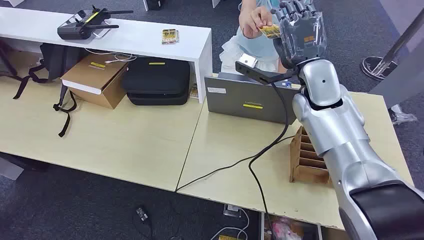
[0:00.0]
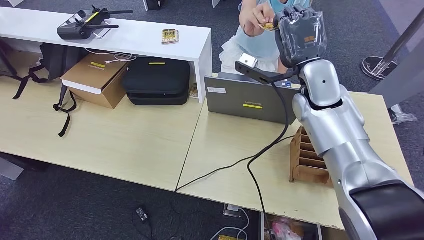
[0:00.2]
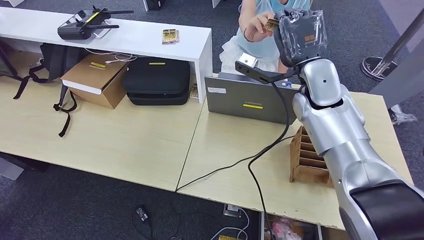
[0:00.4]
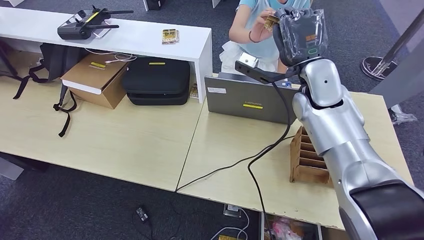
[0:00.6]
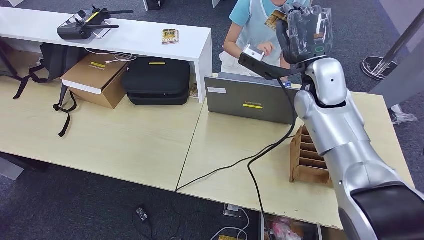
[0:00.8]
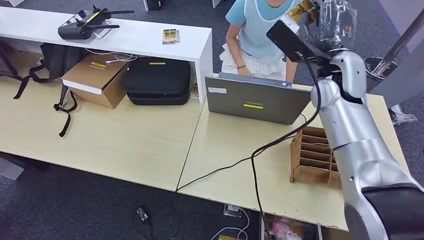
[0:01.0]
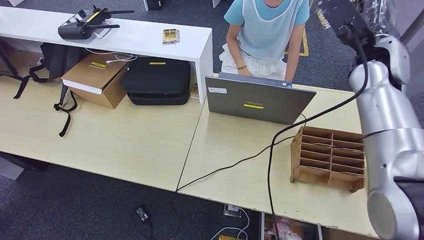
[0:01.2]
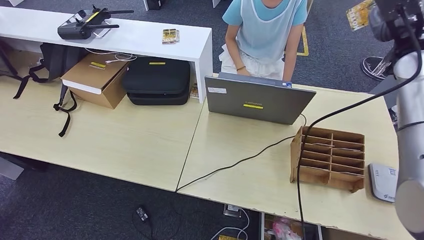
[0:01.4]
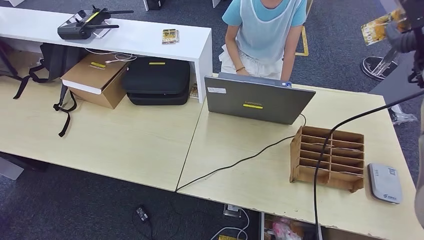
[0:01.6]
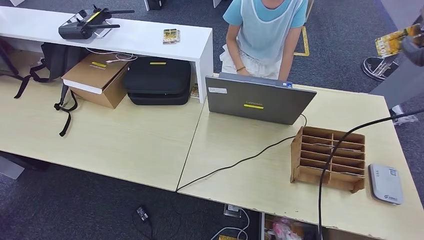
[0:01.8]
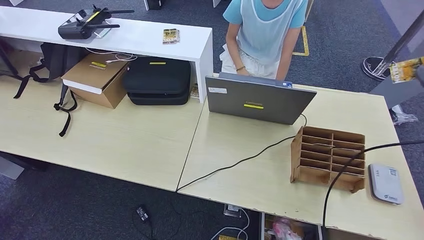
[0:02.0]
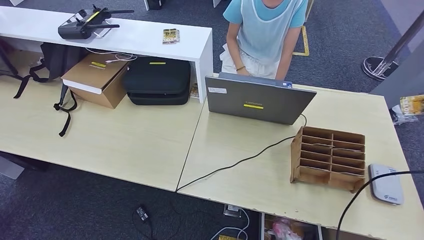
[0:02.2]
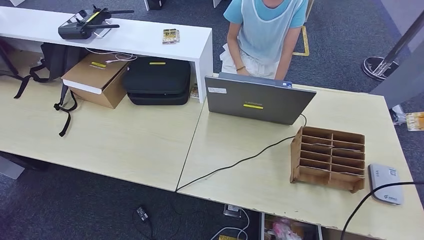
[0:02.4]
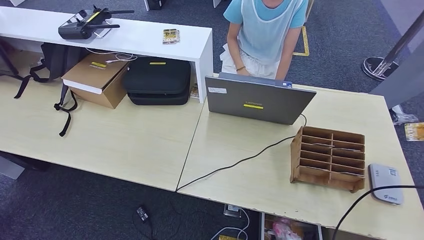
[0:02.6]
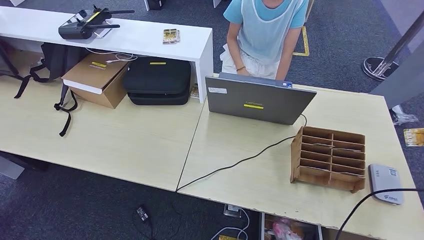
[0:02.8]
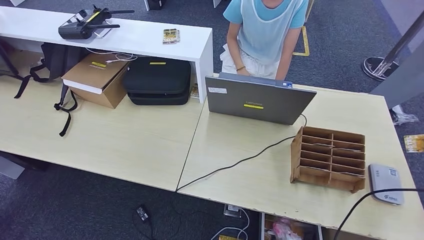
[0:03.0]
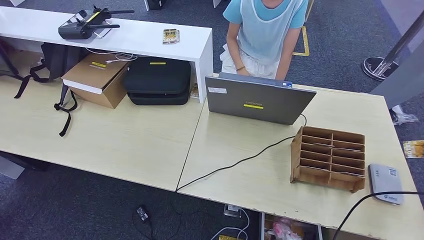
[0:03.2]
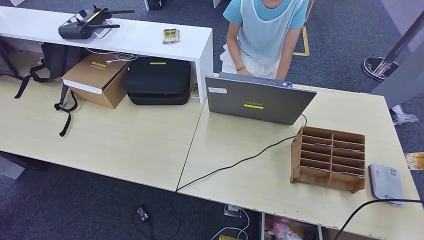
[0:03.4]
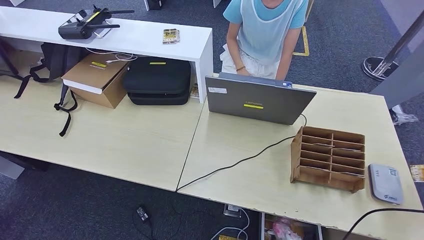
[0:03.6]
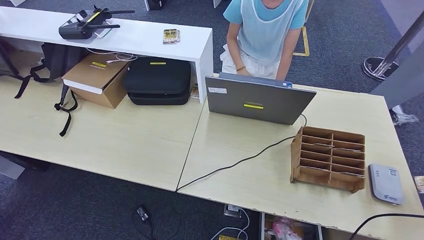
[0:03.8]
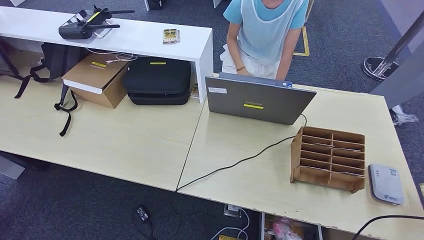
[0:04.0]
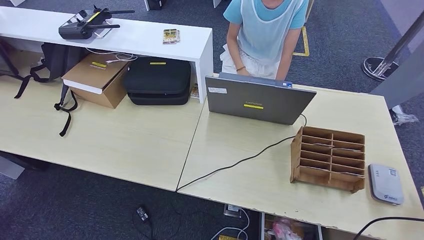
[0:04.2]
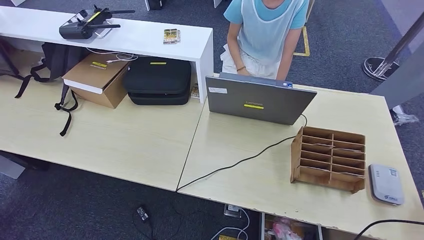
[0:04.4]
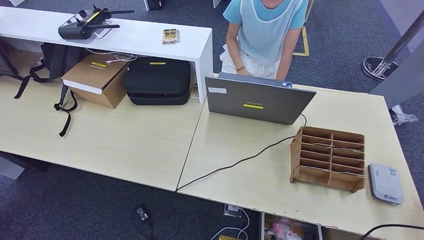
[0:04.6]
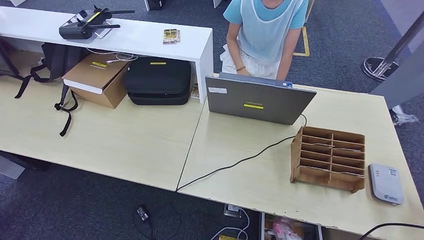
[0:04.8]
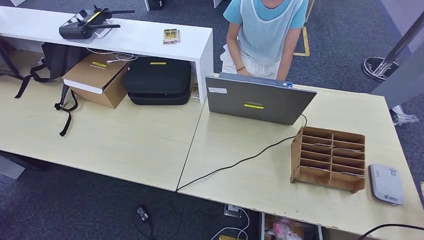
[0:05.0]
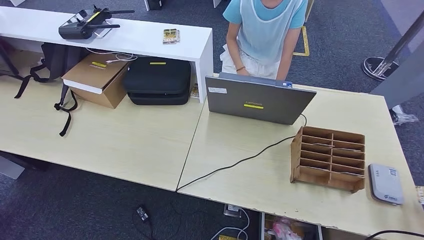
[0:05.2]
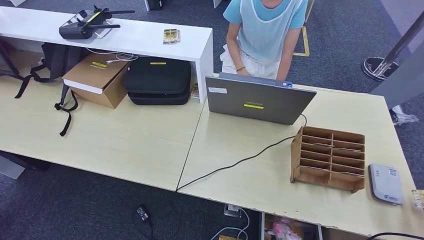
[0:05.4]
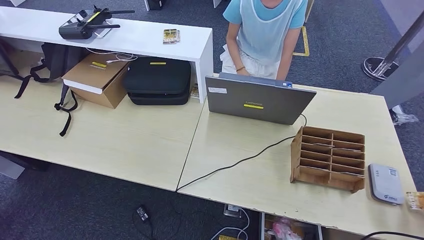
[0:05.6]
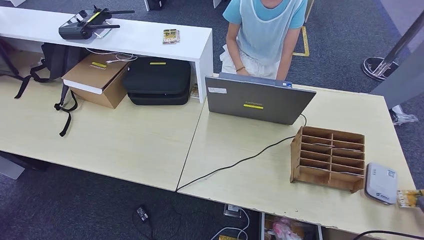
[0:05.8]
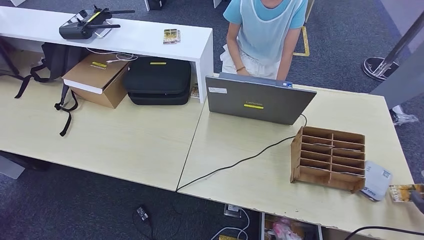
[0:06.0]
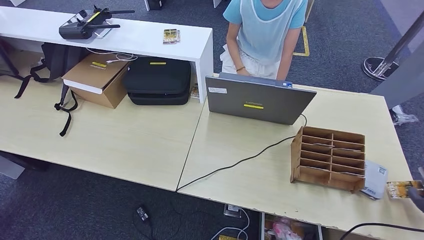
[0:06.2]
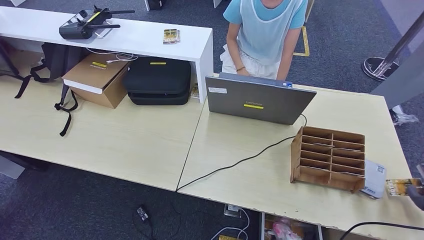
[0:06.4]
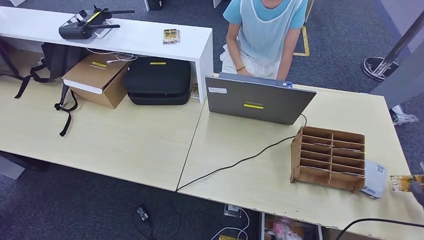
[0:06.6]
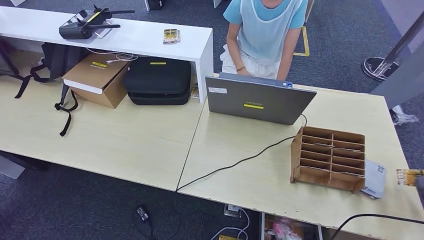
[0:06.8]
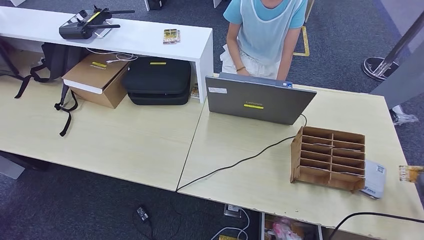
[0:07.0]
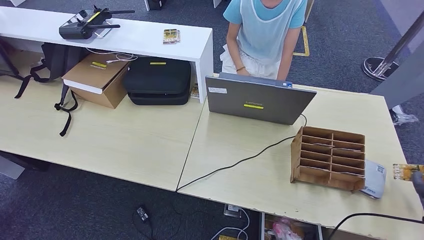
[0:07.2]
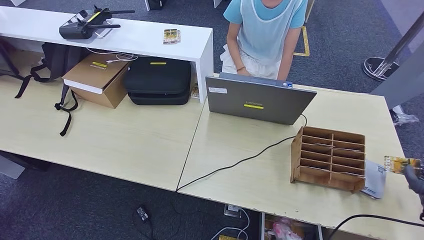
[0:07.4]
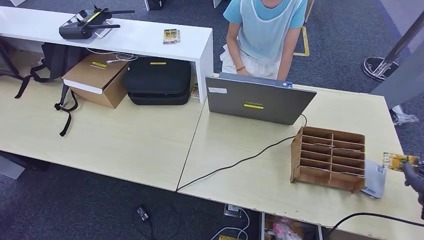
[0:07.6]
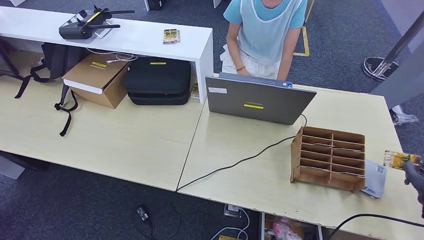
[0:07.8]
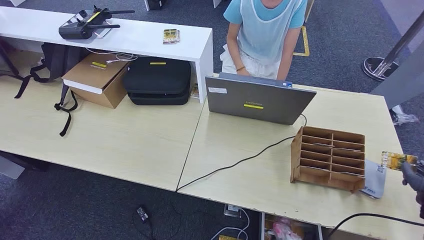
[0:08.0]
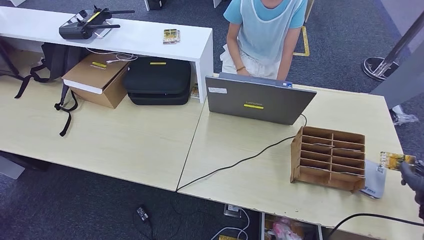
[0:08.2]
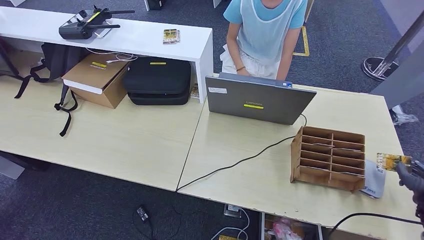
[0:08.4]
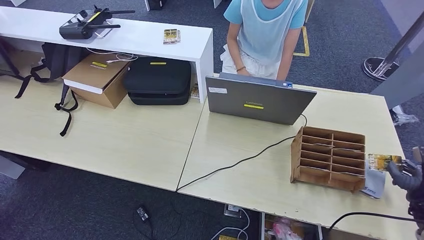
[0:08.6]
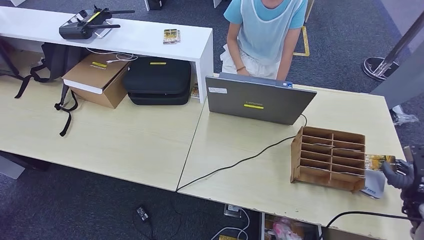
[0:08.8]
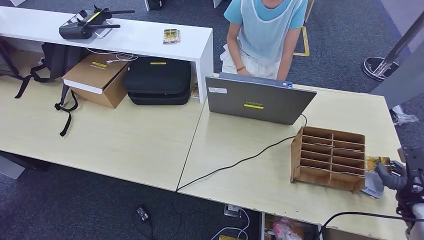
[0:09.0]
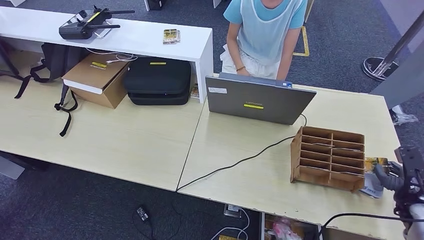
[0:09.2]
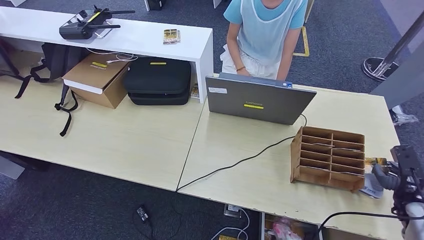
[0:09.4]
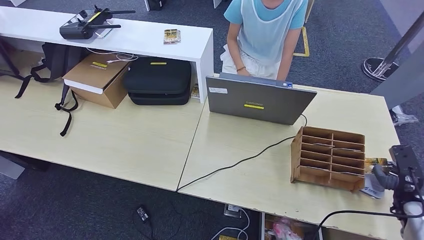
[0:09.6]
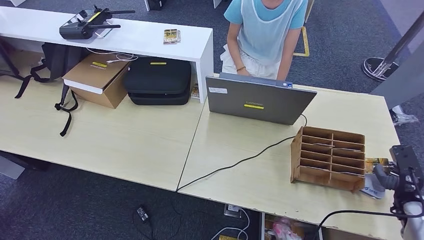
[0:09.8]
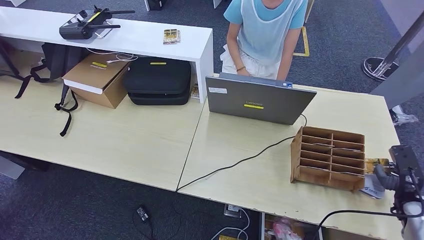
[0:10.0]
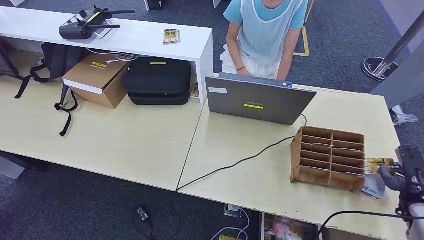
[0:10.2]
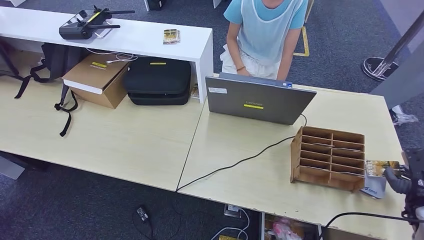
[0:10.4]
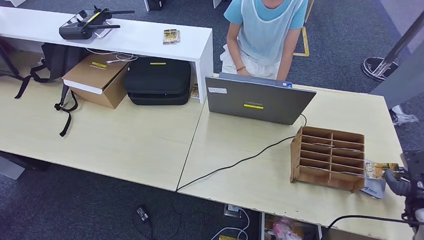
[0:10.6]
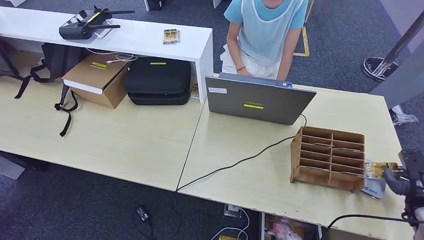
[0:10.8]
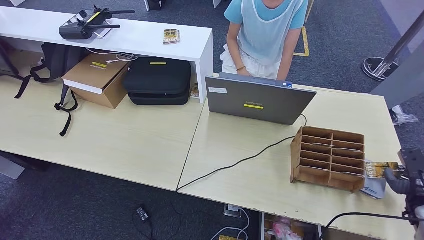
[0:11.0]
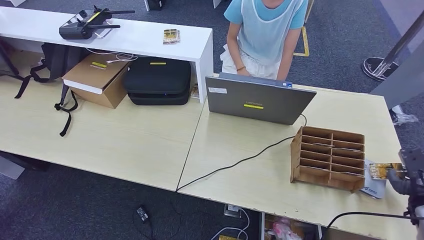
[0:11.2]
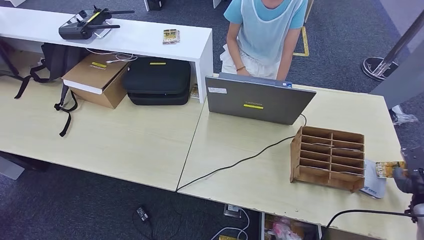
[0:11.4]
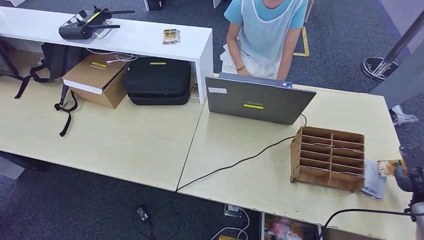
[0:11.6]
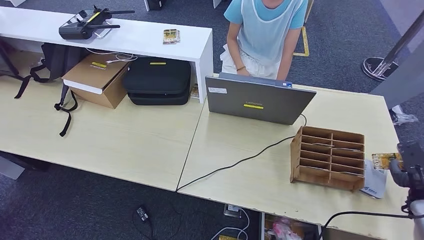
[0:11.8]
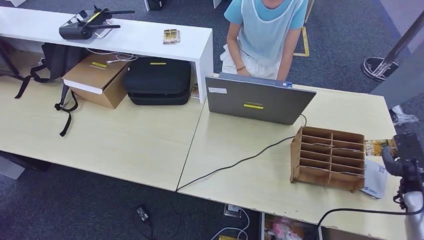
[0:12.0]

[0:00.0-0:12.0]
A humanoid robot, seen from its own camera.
Step, 0:00.0 to 0:01.6: Take the ID card from the person's hand.
Step, 0:01.8 to 0:11.0: Place the ID card on the card reader.
0:01.6 to 0:03.0: The right hand heads downward, to the right and backward, covering some 30 cm.
0:03.0 to 0:04.4: The right hand is displaced backward and downward by about 10 cm.
0:04.4 to 0:06.0: The hands make only small movements.
0:06.0 to 0:07.6: The right hand ends up some 5 cm from where it was.
0:07.6 to 0:10.4: The hands stay close to where they were, moving slightly.
0:10.4 to 0:12.0: The hands stay close to where they were, moving slightly.

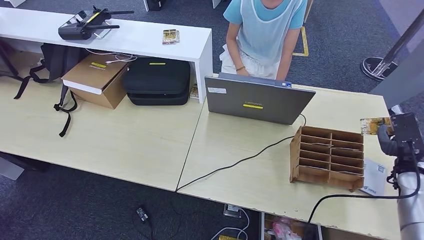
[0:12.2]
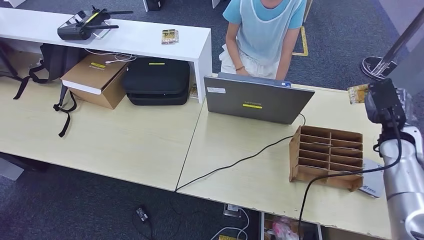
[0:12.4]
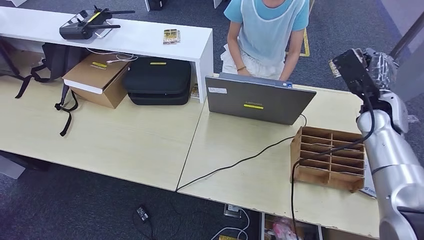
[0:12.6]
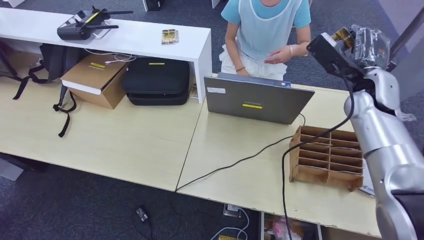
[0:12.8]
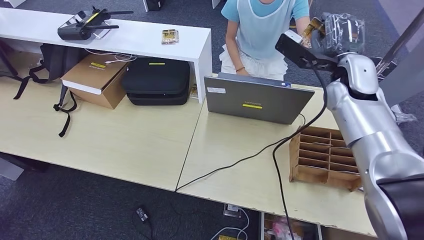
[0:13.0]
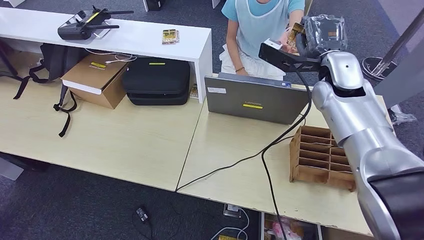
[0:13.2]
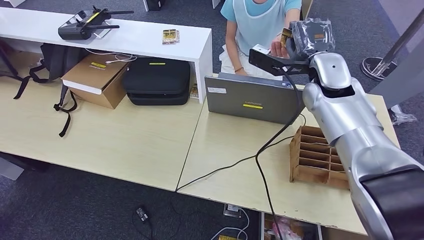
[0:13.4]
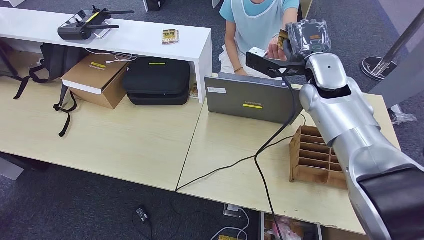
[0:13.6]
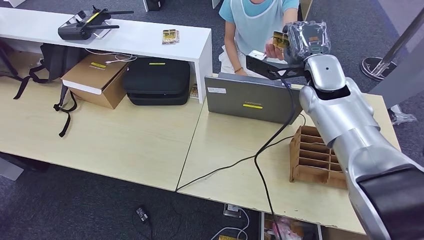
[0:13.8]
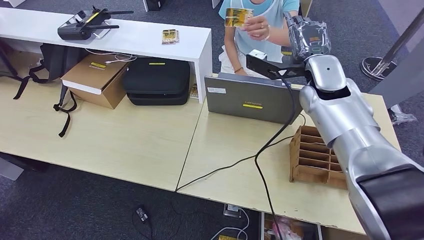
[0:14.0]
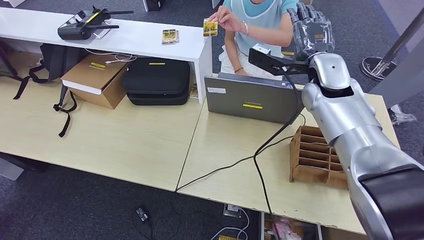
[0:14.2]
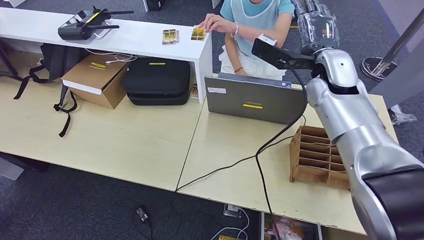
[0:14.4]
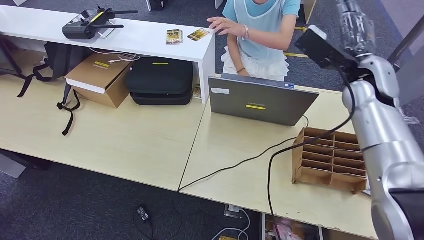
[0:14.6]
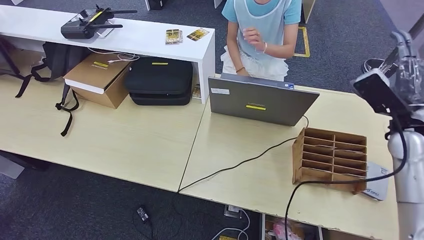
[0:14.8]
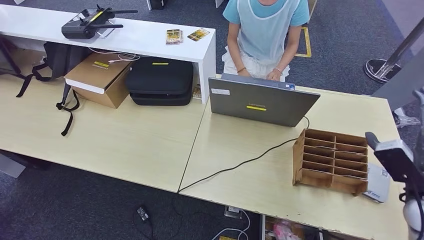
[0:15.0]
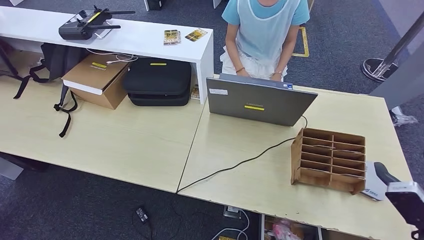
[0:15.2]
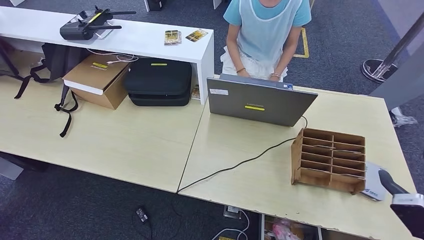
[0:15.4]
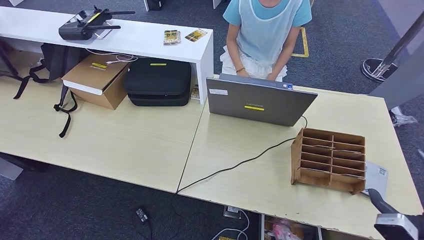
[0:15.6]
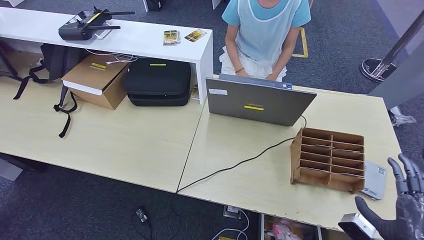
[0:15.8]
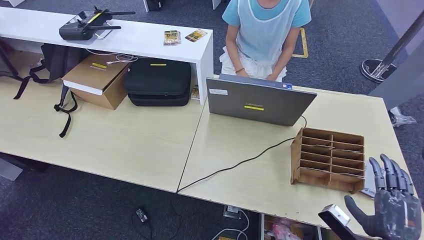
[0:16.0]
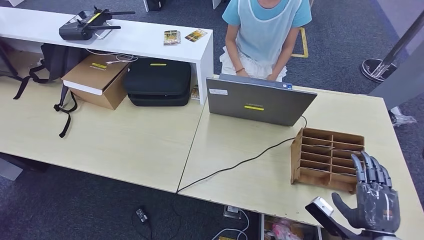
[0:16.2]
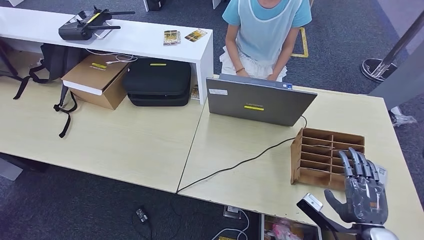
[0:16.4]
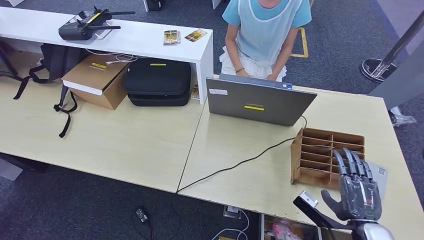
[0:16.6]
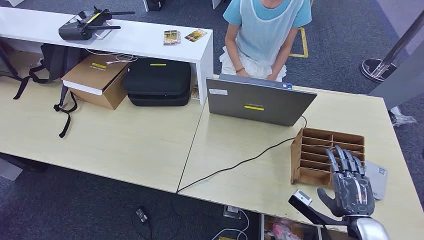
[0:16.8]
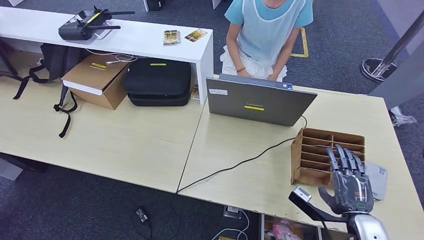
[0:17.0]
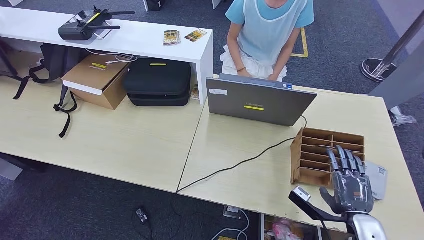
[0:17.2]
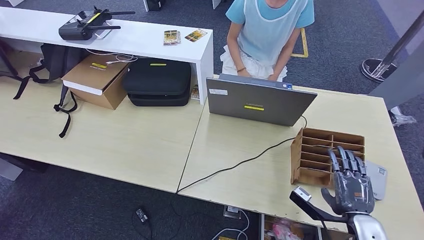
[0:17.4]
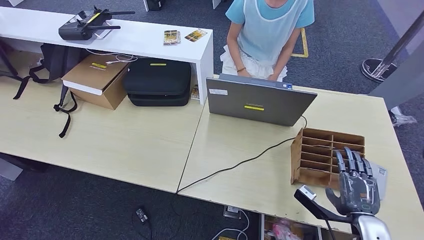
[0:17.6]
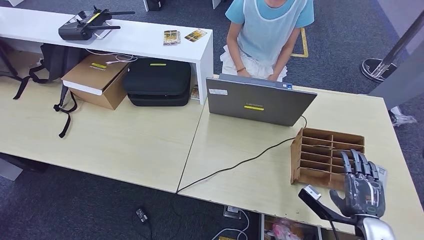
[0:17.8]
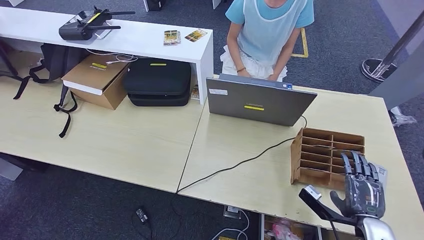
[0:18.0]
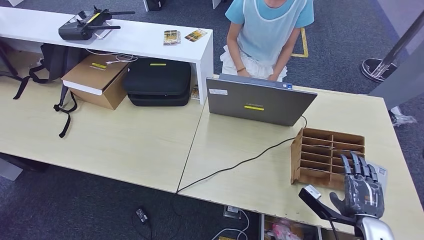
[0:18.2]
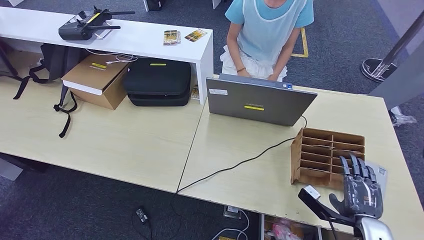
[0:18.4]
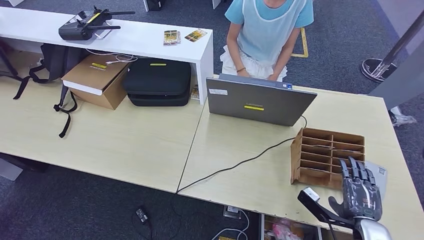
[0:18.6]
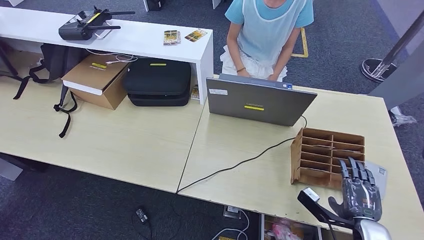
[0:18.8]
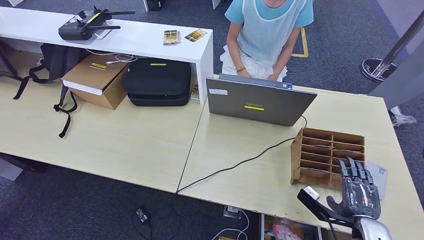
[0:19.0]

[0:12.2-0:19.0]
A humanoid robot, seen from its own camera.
Step, 0:12.2 to 0:15.6: Hand the ID card to the person.
0:12.2 to 0:13.6: The right hand is displaced to the left and upward by approximately 35 cm.
0:15.0 to 0:16.2: The right hand travels backward, downward and to the left by approximately 15 cm.
0:16.2 to 0:19.0: The hands stay close to where they were, moving slightly.
